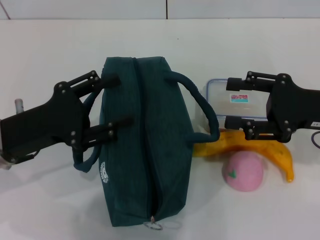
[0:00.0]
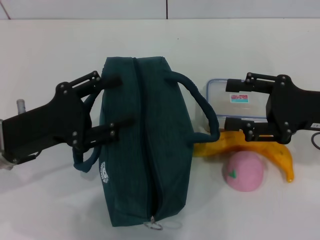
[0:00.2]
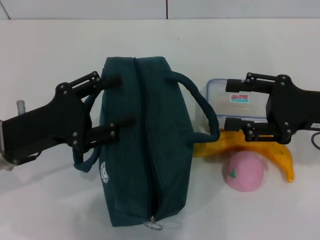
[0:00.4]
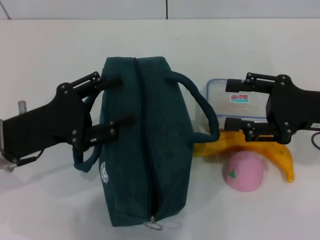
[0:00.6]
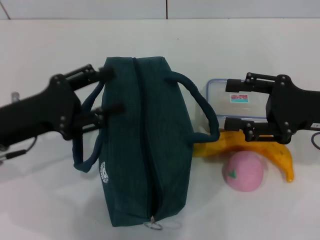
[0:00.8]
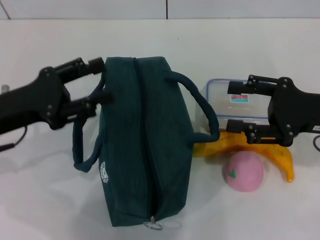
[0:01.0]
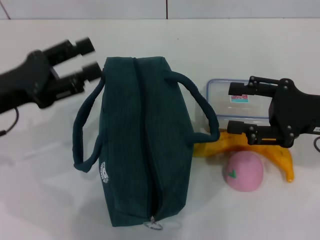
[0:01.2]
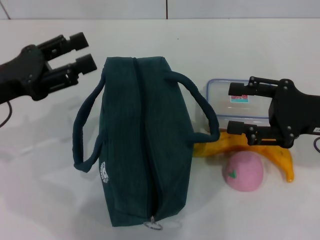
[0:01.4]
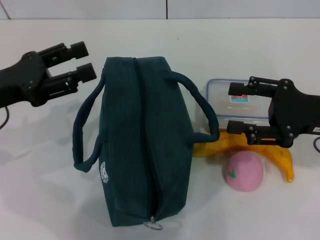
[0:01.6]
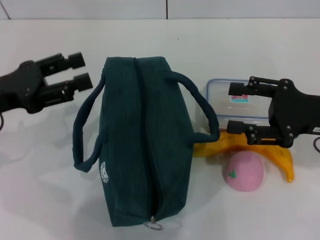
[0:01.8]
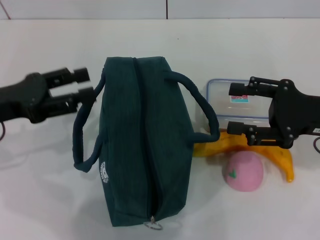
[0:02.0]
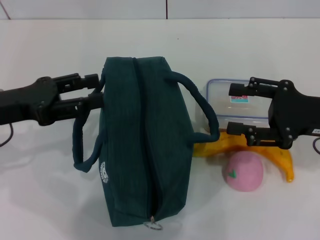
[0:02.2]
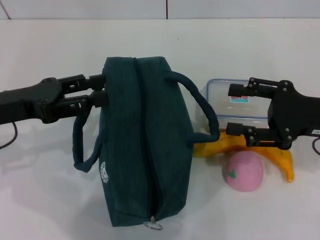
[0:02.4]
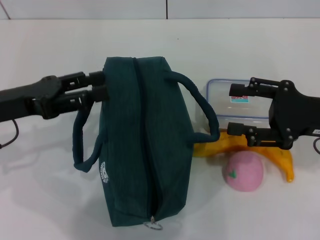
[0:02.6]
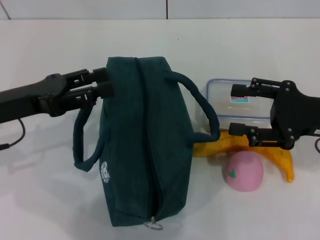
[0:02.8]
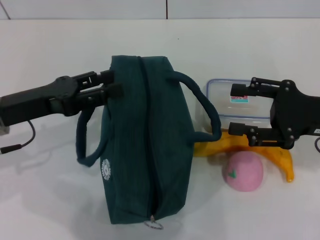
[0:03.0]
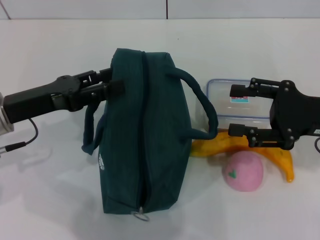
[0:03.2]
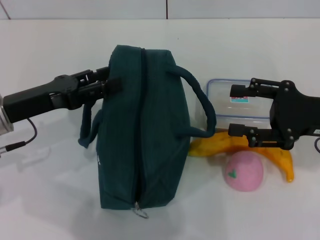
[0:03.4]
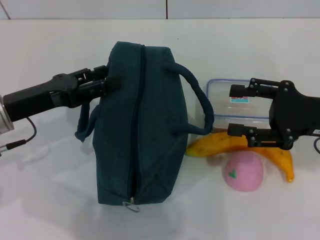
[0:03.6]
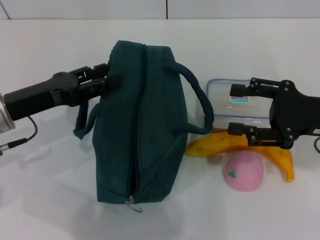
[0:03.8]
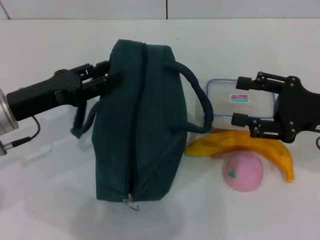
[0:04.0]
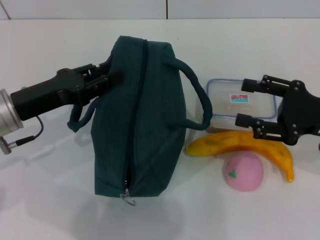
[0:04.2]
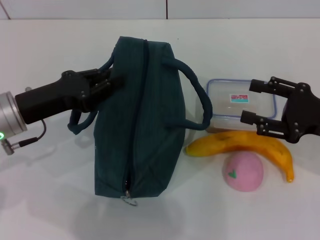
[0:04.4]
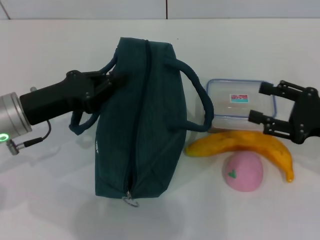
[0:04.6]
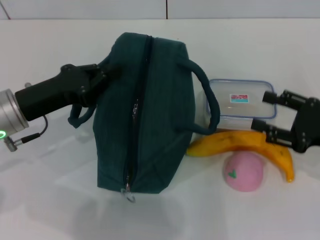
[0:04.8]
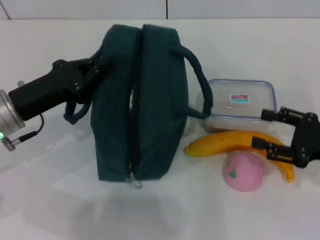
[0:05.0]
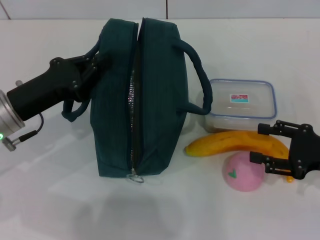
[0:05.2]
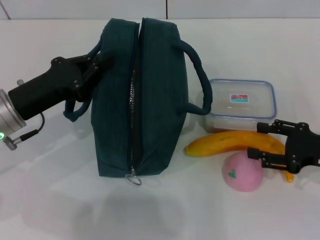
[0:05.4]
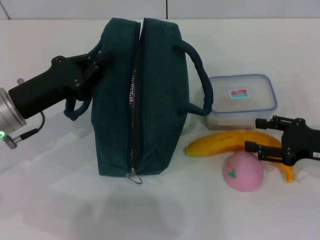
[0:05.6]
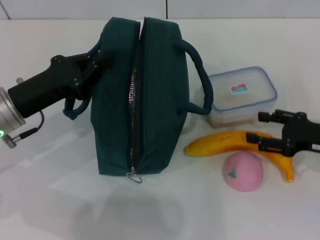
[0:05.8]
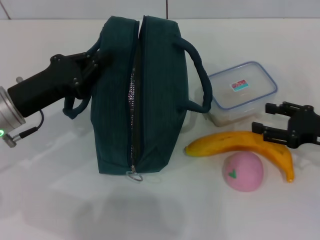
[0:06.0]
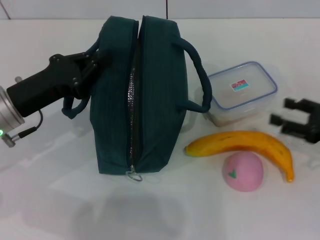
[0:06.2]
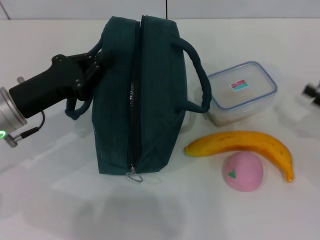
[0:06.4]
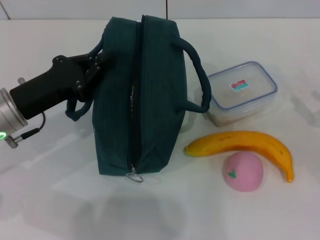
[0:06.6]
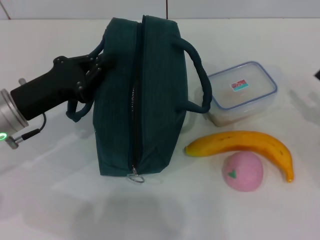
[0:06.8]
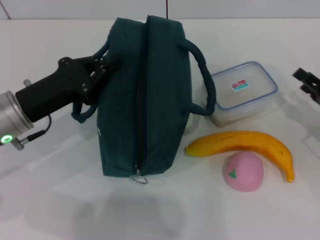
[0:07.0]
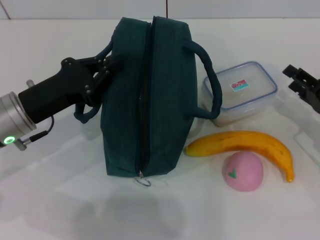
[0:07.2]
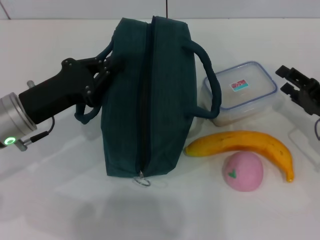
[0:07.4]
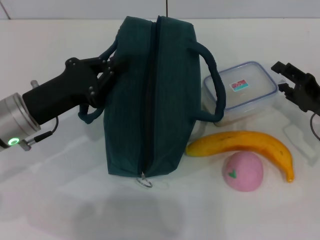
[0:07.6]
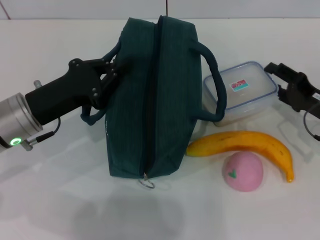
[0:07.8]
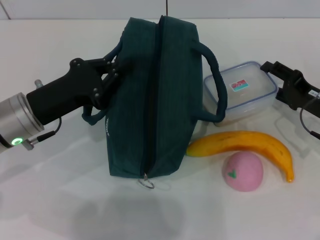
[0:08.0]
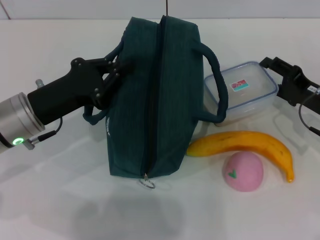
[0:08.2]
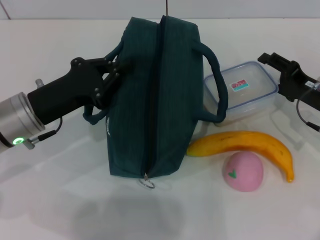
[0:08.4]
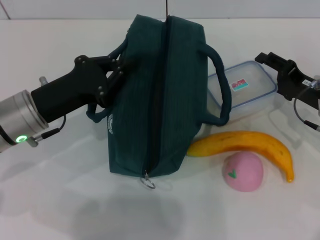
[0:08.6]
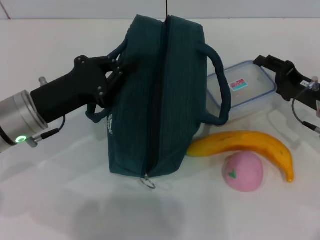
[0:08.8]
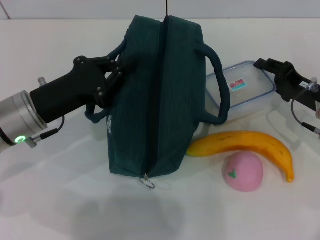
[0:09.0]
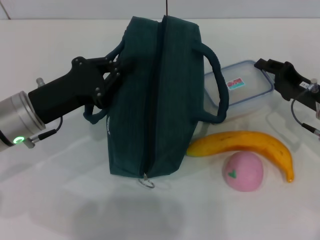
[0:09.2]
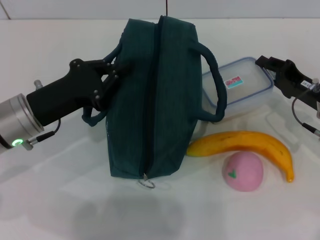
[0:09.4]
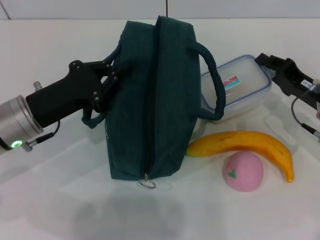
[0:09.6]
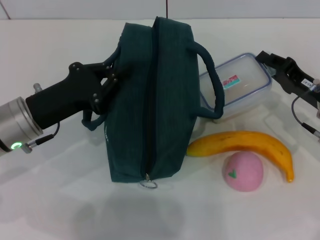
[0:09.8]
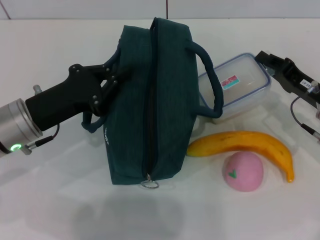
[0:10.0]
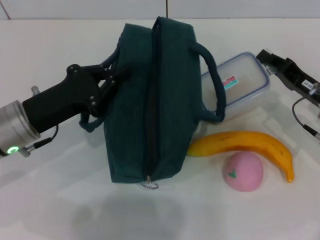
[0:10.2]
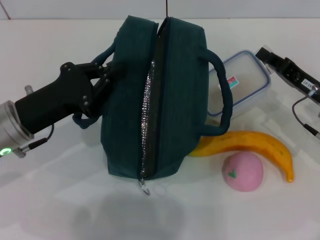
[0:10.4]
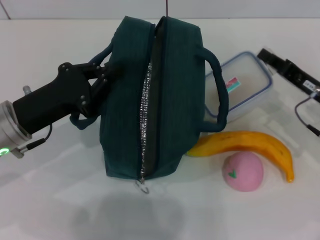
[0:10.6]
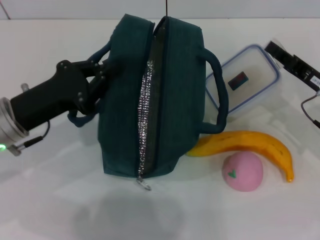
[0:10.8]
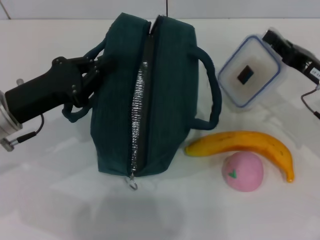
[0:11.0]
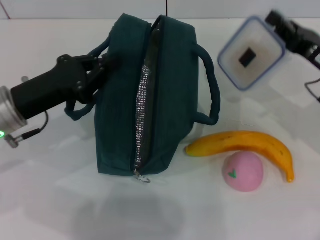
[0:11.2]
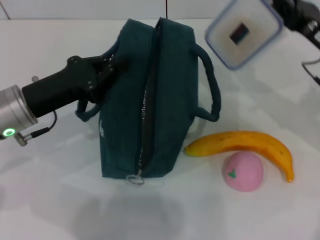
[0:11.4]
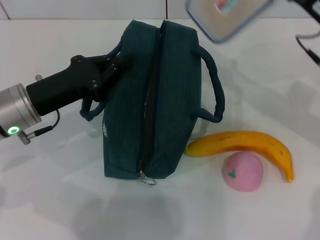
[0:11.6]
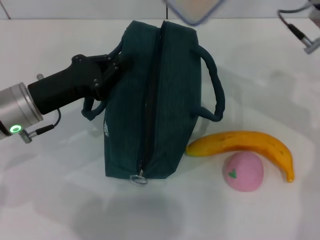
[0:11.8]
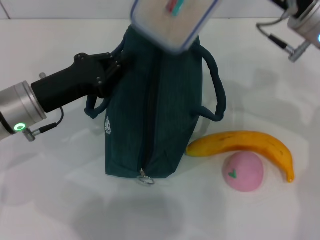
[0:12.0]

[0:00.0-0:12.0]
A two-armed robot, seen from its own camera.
Step, 0:00.0 to 0:04.6: Hold the lunch bag with your left hand.
Step, 0:04.8 to 0:09.8: Pick up the lunch box with your right hand.
0:00.0 to 0:01.6: The left gripper shifts by some 5 cm.
0:01.6 to 0:04.4: The grippers stay close to where they were, moving slightly.
0:04.4 to 0:06.0: The left gripper closes.
0:07.6 to 0:09.0: The grippers make only small movements.
0:09.0 to 0:10.4: The right gripper closes.
0:10.4 to 0:12.0: The right gripper heads upward and to the left, covering some 15 cm.

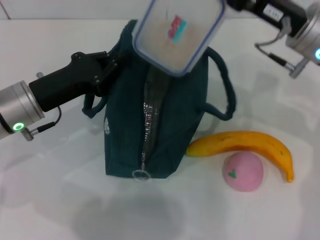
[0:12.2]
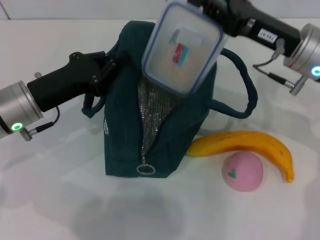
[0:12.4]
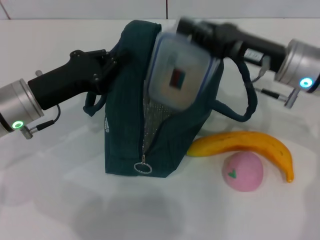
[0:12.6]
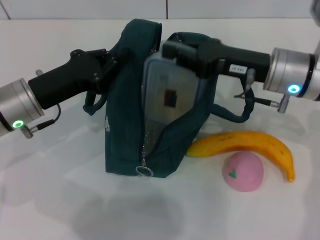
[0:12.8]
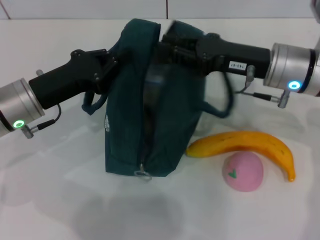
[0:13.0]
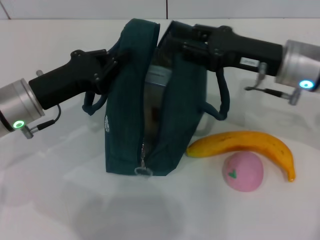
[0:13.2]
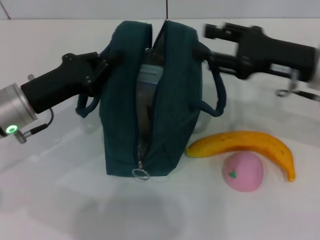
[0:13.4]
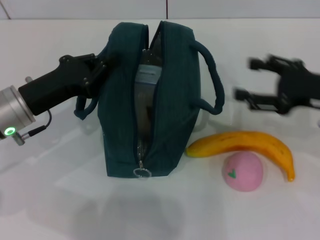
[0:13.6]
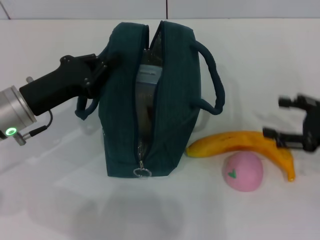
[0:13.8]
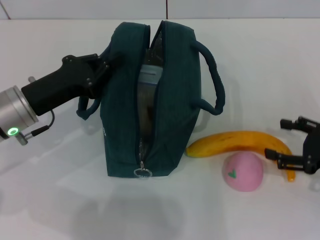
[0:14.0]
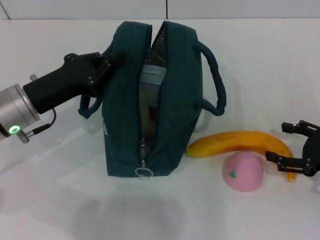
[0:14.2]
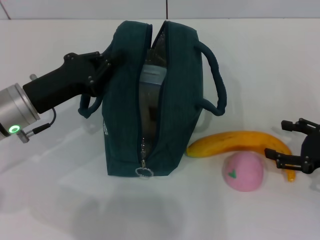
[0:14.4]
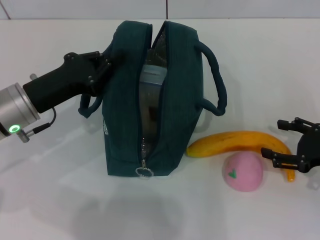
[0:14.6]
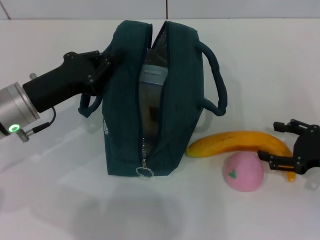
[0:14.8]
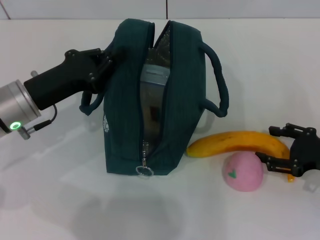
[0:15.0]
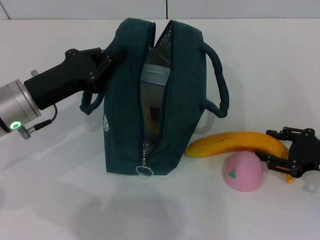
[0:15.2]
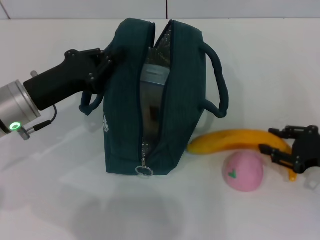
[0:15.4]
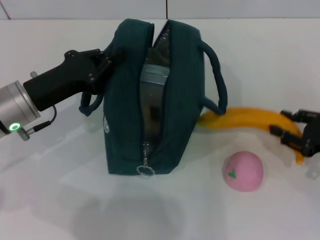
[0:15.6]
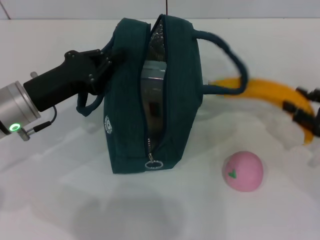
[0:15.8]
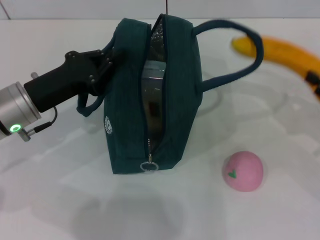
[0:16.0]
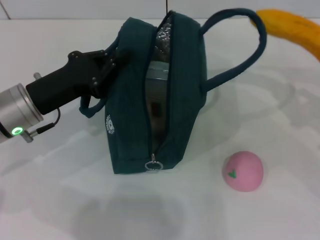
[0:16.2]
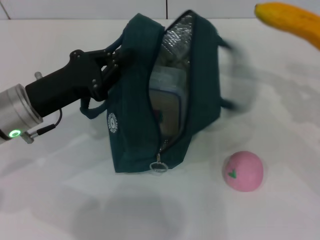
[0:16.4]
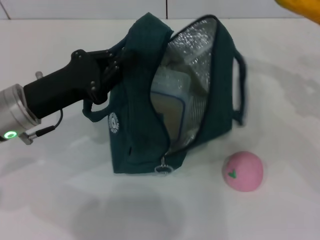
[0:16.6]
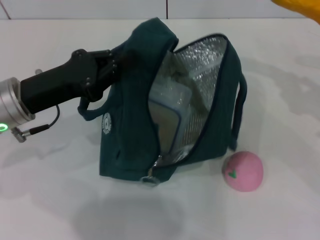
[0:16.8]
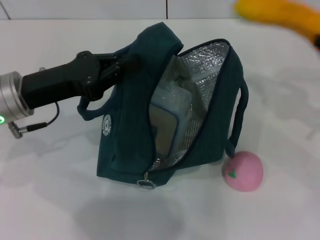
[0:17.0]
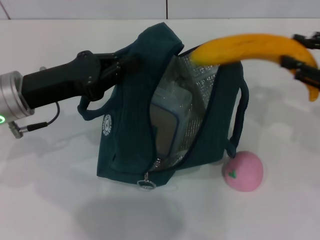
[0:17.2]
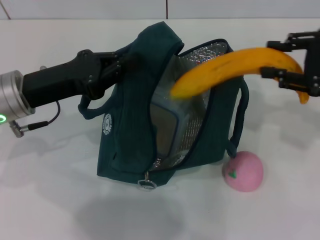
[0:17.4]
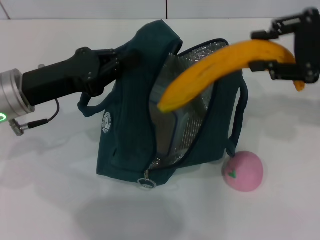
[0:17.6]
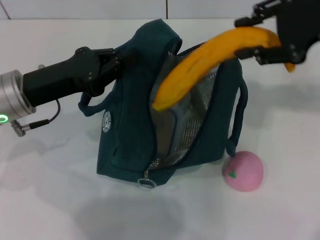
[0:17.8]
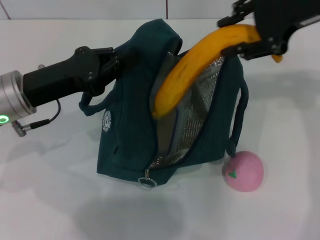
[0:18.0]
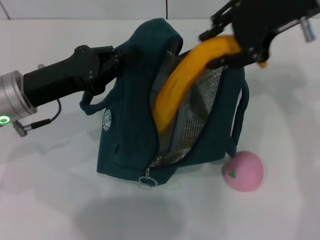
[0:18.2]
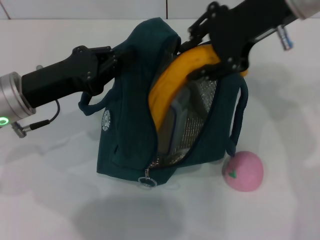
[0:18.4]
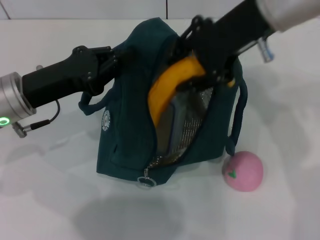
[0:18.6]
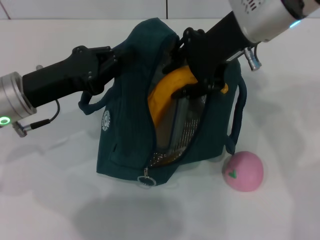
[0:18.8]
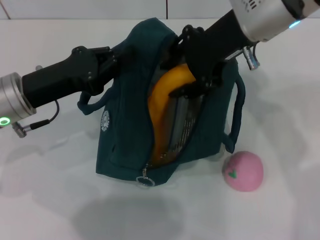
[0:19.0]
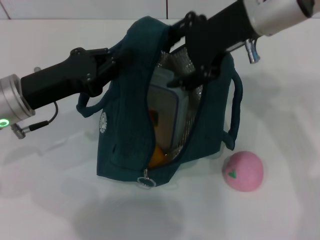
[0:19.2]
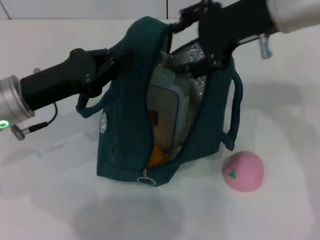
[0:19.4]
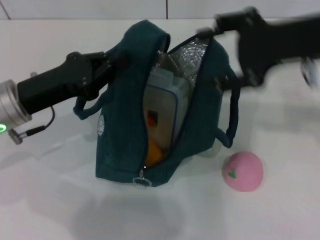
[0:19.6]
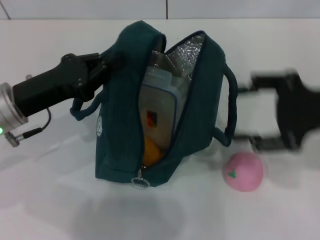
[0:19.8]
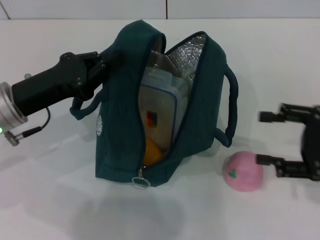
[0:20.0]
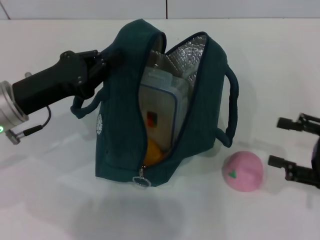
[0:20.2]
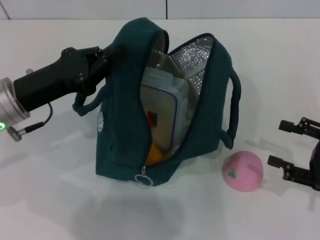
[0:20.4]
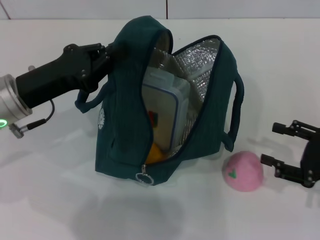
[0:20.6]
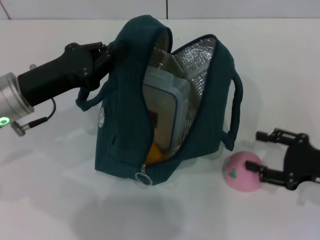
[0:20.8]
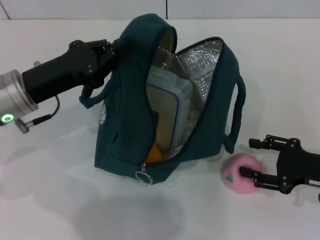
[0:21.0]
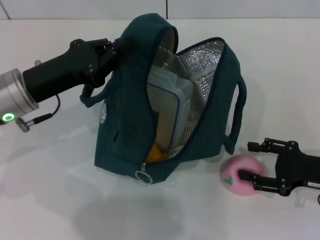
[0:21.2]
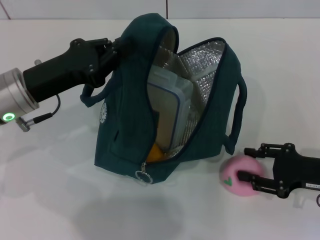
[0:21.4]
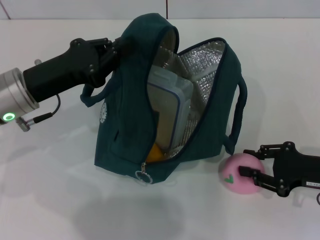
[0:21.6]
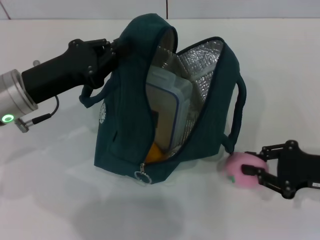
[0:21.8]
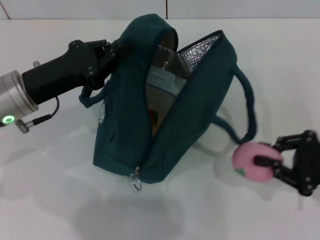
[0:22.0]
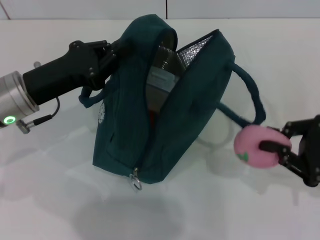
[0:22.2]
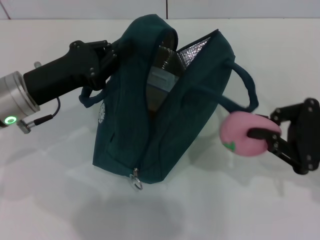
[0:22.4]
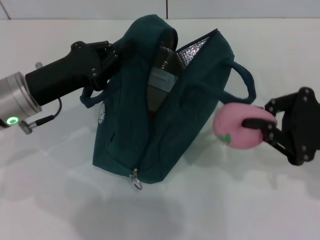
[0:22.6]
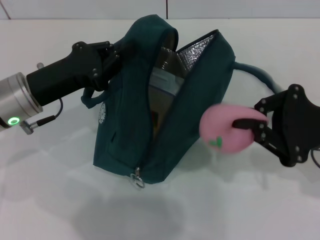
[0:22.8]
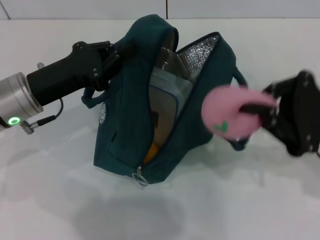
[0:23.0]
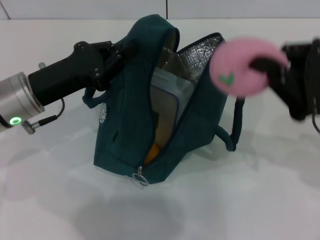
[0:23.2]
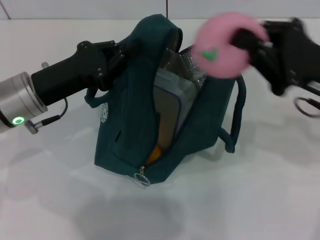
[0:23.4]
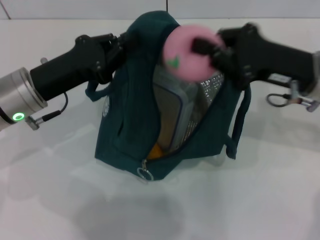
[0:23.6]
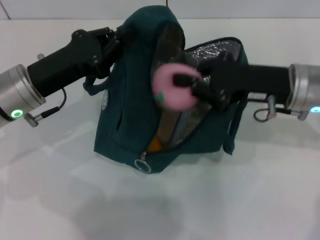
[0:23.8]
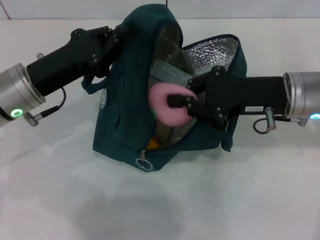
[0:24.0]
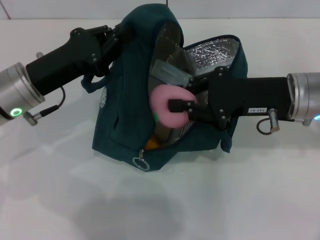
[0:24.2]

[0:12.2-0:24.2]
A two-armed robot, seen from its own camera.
Step, 0:13.4 to 0:15.2: Take the banana with your right hand.
Step, 0:15.4 to 0:19.2: Put the banana into the lunch bag with your right hand.
Step, 0:19.4 to 0:21.4: Grab the peach with your right hand.
0:12.2 to 0:13.8: The right gripper is displaced to the right, backward and downward by approximately 15 cm, and opens.
0:13.8 to 0:15.2: The right gripper heads downward, covering approximately 5 cm.
0:15.2 to 0:16.6: The right gripper travels to the right and upward by about 10 cm, and closes its fingers.
0:16.6 to 0:18.2: The right gripper goes about 30 cm to the left, upward and forward.
0:18.2 to 0:19.8: The right gripper travels backward, downward and to the right by about 15 cm.
0:19.8 to 0:21.2: The right gripper heads downward, covering some 15 cm.
0:21.2 to 0:22.6: The right gripper shifts some 10 cm upward, and closes its fingers.
0:22.6 to 0:24.2: The right gripper is displaced to the left and forward by approximately 10 cm.
